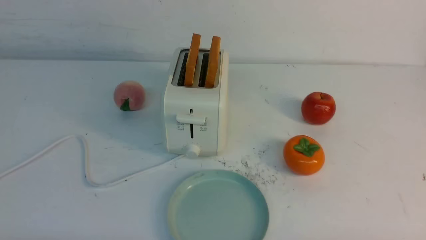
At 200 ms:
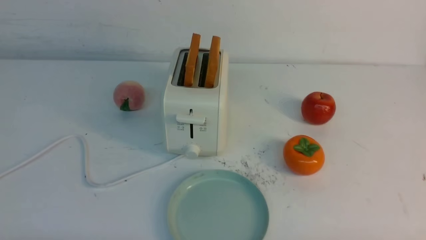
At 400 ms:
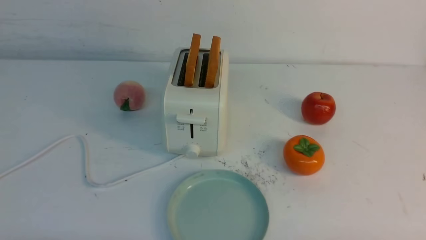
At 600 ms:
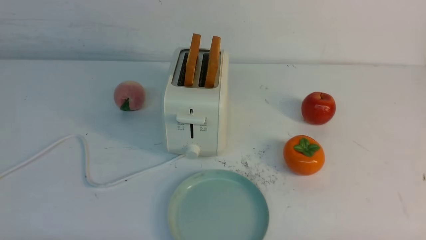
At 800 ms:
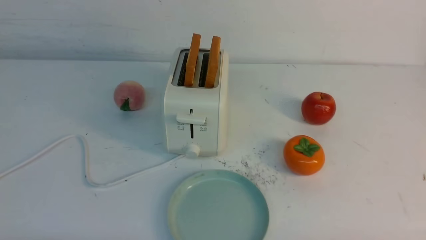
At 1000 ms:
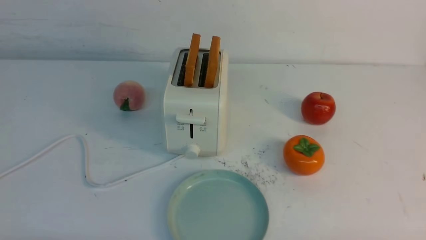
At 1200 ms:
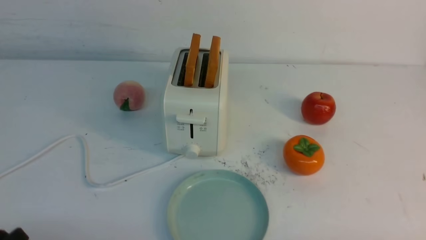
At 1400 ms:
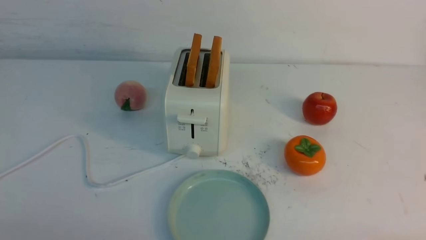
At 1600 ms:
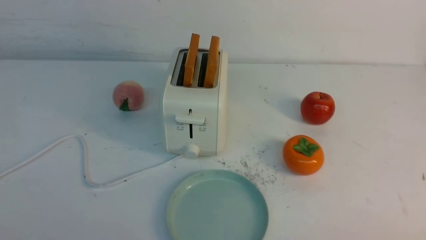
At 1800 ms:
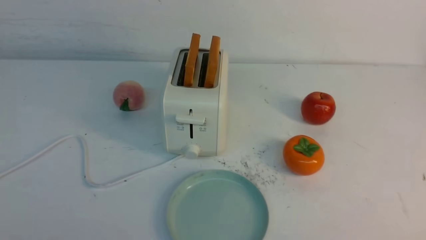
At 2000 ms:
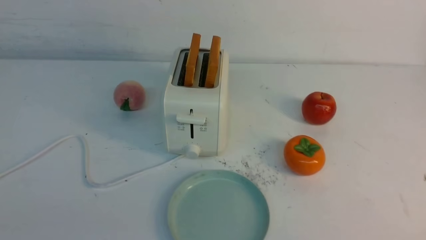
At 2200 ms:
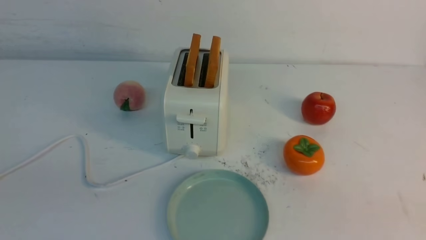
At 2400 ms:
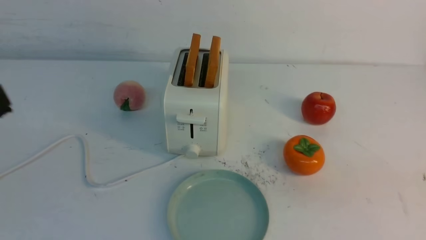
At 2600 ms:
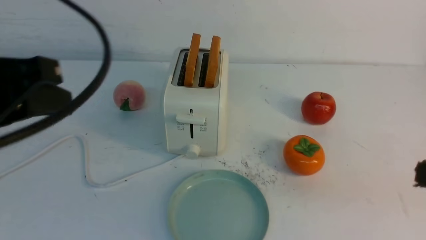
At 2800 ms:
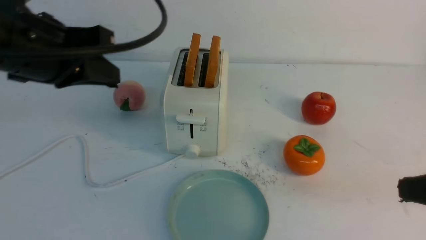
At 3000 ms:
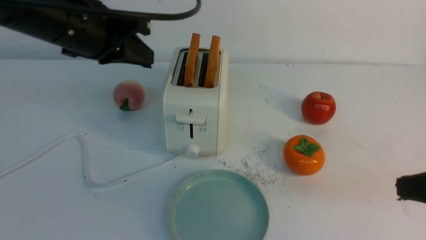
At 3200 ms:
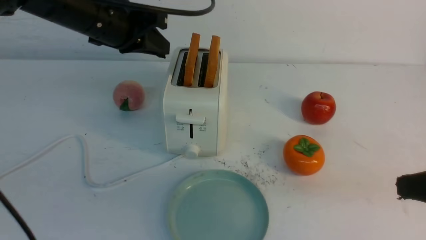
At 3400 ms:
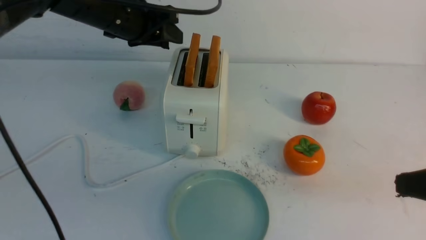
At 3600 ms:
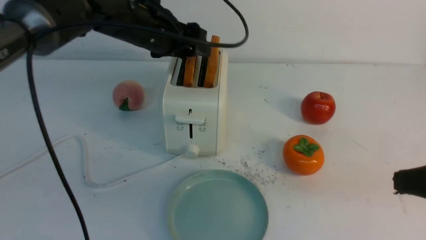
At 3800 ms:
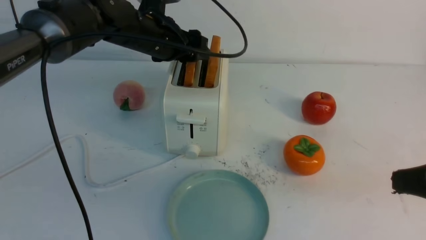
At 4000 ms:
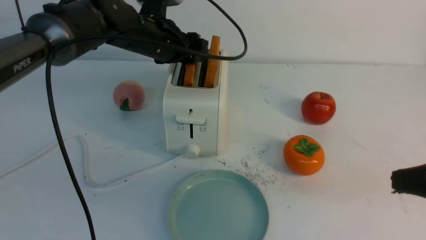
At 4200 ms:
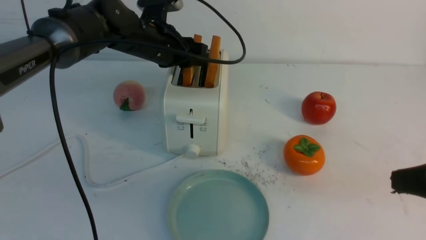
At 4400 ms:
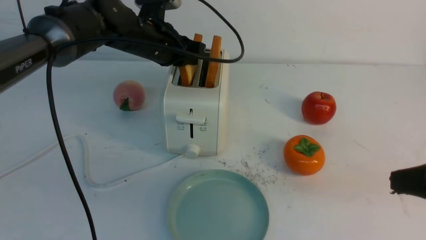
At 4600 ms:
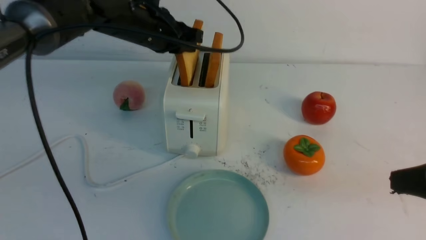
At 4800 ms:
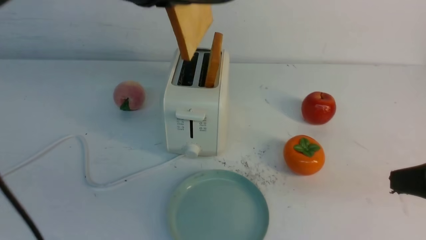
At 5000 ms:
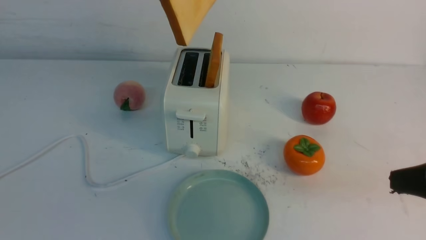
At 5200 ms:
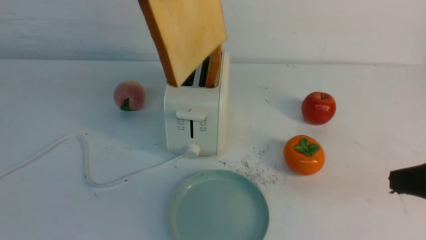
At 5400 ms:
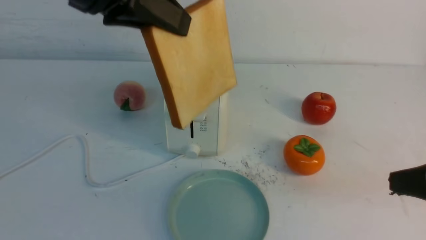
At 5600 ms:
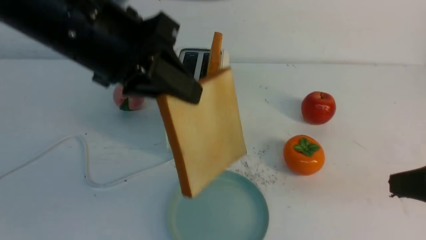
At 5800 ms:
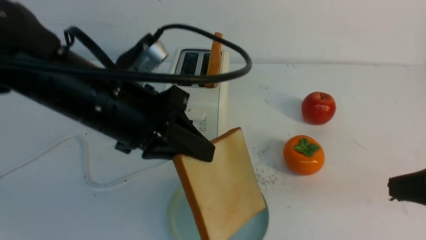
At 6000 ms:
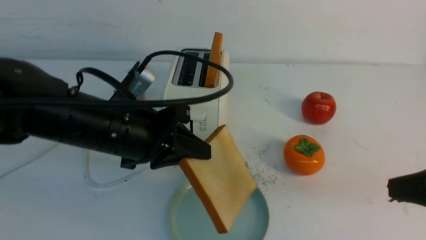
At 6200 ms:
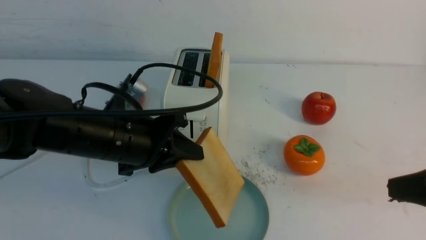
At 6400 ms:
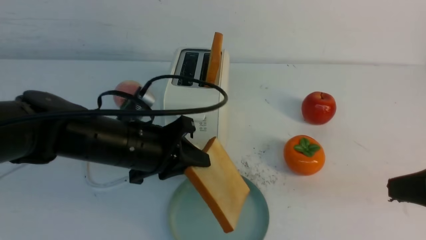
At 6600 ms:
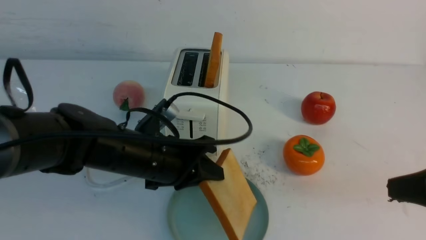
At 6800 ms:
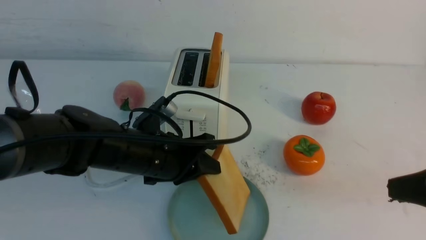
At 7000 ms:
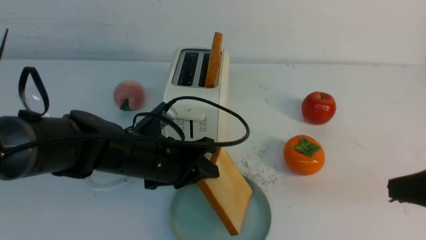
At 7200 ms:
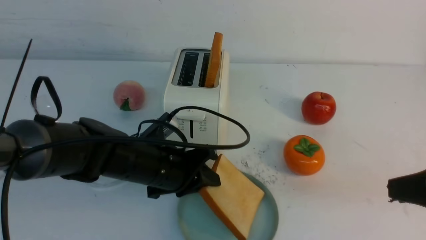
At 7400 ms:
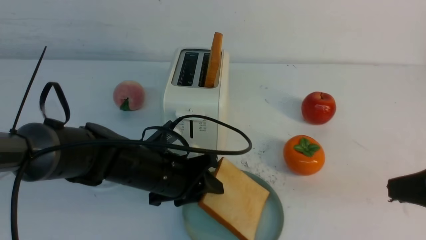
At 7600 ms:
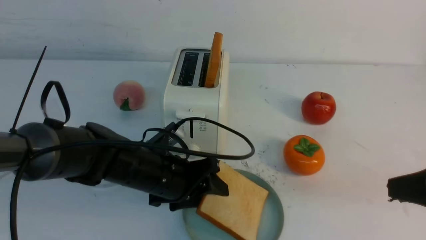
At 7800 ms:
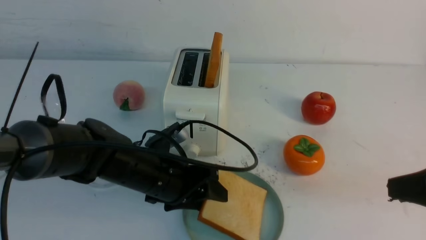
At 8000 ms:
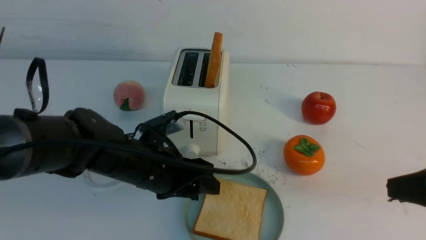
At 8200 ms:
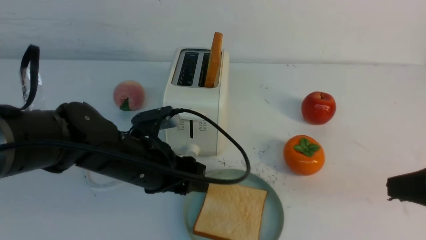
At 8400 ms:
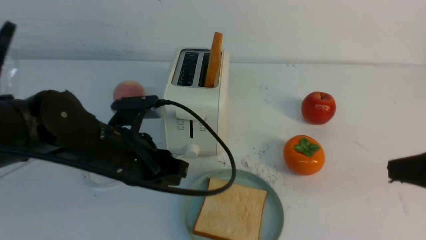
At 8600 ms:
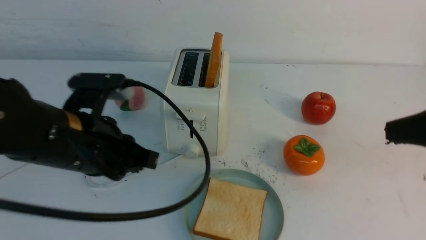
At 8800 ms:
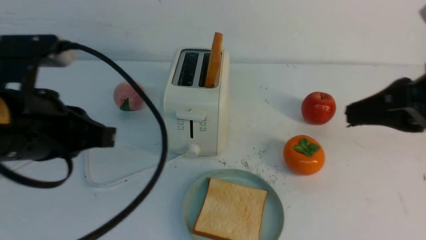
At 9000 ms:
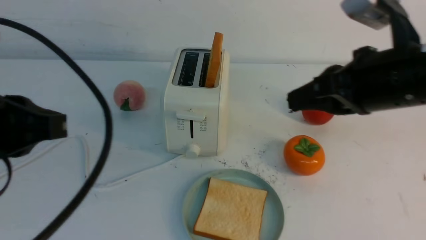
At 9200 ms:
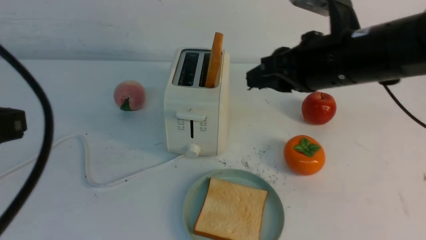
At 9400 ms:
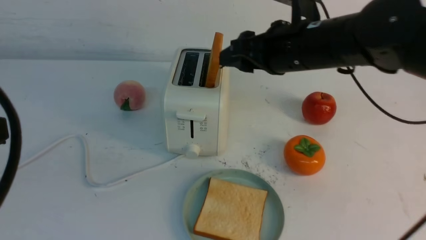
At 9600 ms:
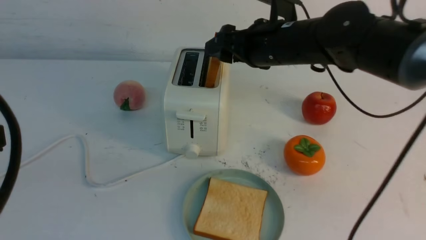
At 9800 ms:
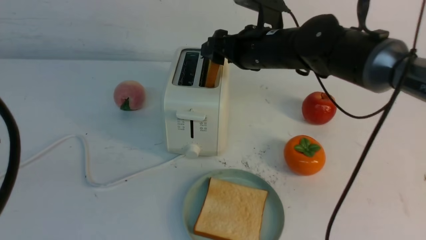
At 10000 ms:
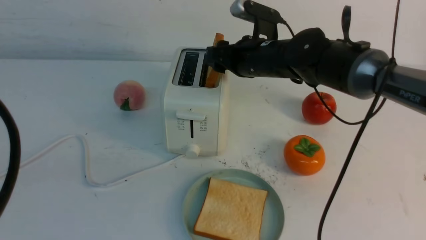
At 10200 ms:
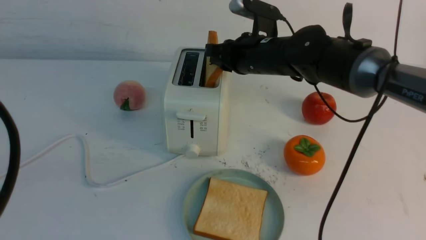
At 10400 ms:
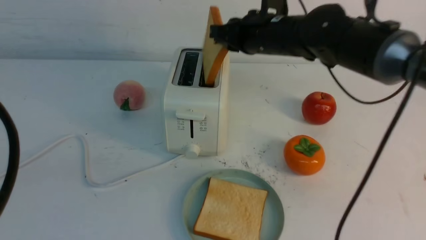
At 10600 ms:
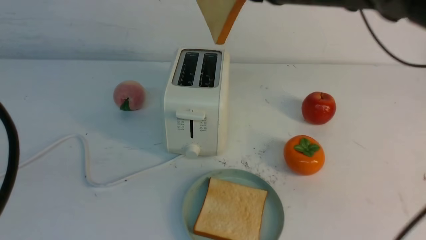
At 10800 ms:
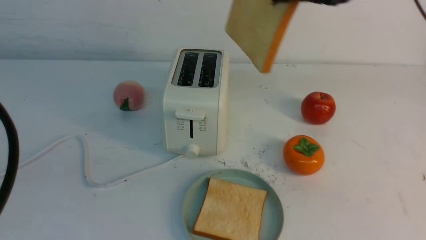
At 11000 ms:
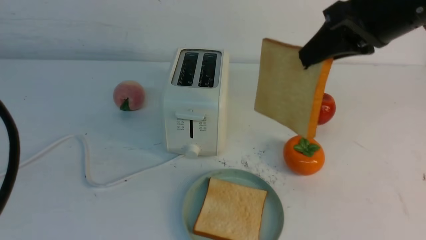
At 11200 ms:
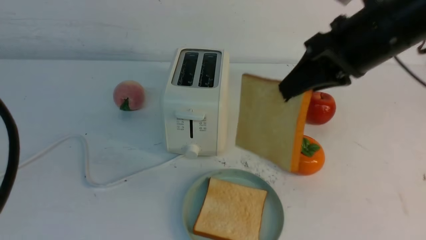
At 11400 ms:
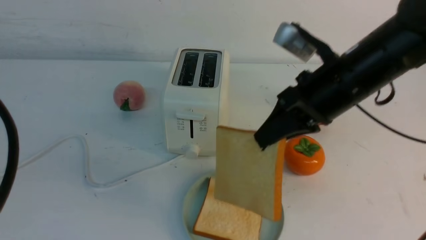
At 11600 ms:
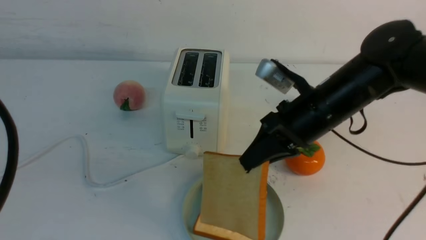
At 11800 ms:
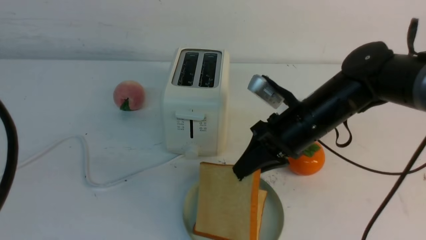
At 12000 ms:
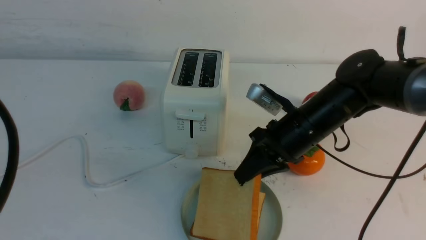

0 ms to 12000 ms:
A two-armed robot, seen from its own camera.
Task of the whole recording: take toasted bread from bread machine on white table place on plate.
Step, 0 ms to 4600 ms: use the left arm to take out a slice of bread.
Step, 4800 ms to 8200 ms: use the left arm to put a slice of bread into the empty plate.
Step, 8600 ms to 10200 ms: use the right arm to take out a slice of bread.
1600 ms to 3000 ms: The right gripper travels upward and forward by about 15 cm, and closes up. The left gripper is displaced forward and upward by approximately 30 cm, and closes up.
3000 ms to 4400 ms: The left gripper shifts approximately 20 cm forward, downward and to the right, and opens its fingers.
4400 ms to 6000 ms: The left gripper goes approximately 20 cm backward.
6000 ms to 7600 ms: The left gripper moves downward, approximately 15 cm, and opens its fingers.
7600 ms to 9000 ms: The right gripper shifts approximately 10 cm forward, to the left and upward; the left gripper goes some 25 cm upward, backward and to the left, and closes up.
9000 ms to 10400 ms: The right gripper heads forward and to the left, covering approximately 20 cm, and opens and closes again. The left gripper travels backward by about 5 cm.
10400 ms to 12000 ms: The right gripper is displaced downward and backward by approximately 10 cm.

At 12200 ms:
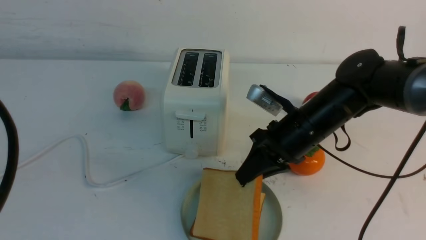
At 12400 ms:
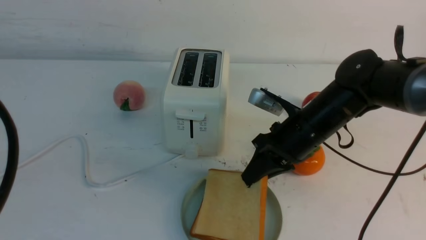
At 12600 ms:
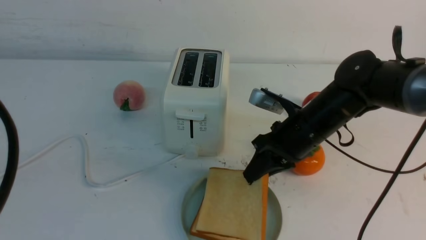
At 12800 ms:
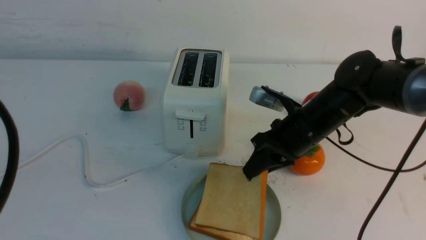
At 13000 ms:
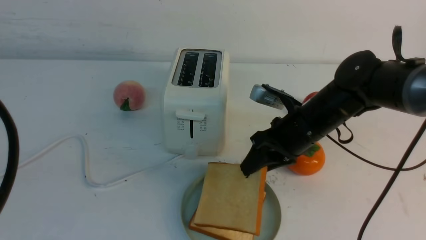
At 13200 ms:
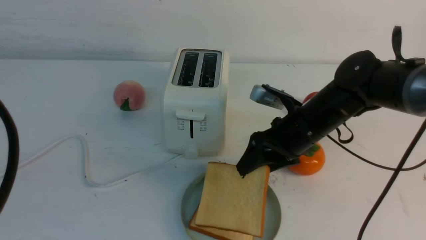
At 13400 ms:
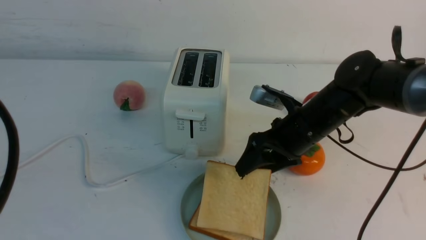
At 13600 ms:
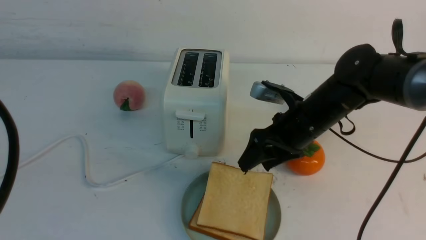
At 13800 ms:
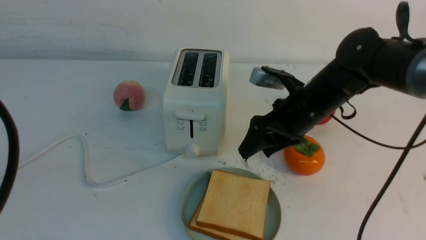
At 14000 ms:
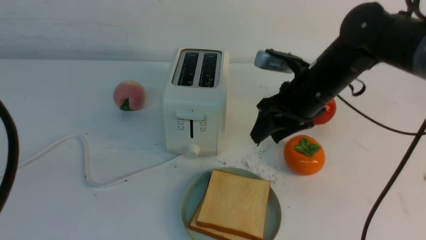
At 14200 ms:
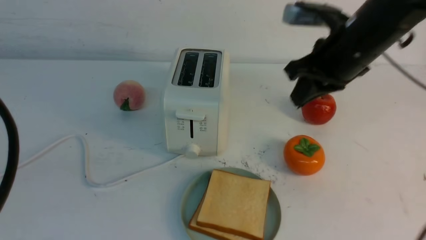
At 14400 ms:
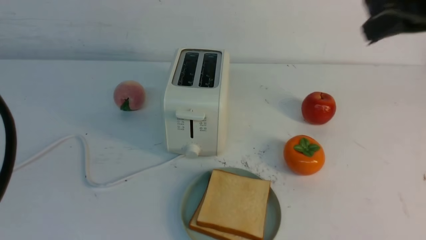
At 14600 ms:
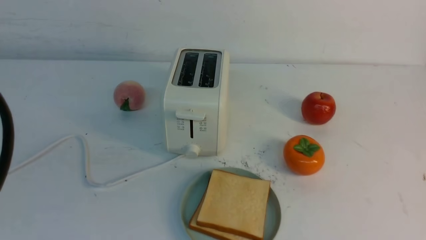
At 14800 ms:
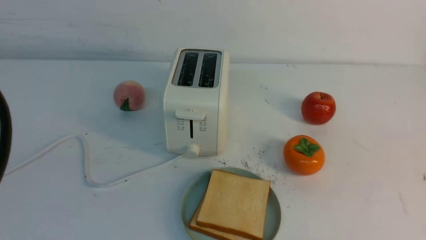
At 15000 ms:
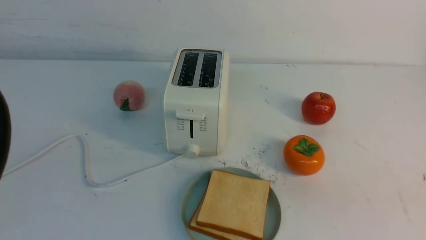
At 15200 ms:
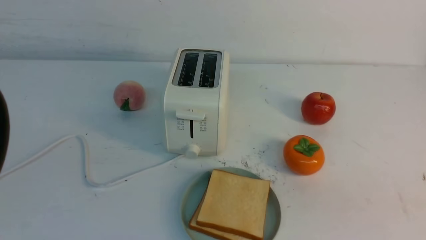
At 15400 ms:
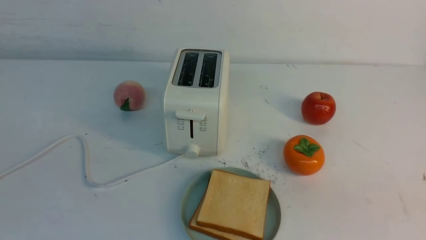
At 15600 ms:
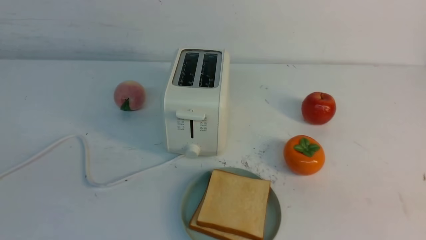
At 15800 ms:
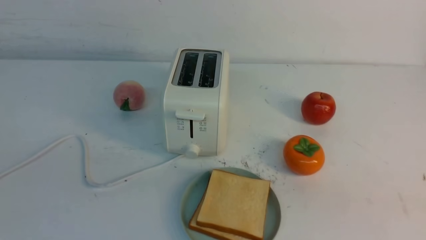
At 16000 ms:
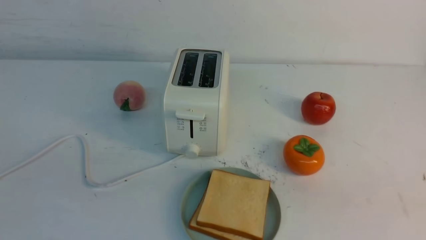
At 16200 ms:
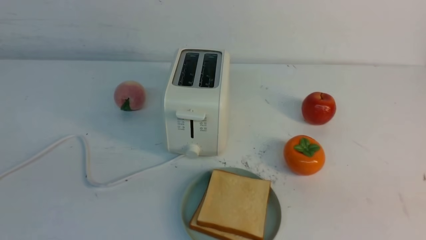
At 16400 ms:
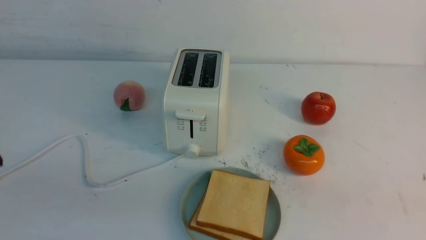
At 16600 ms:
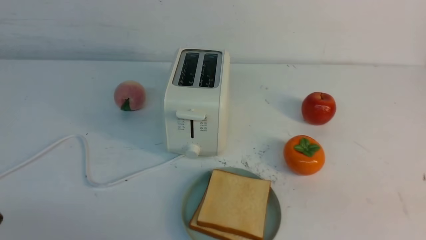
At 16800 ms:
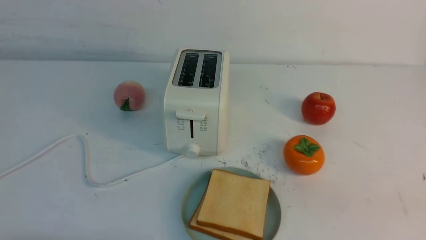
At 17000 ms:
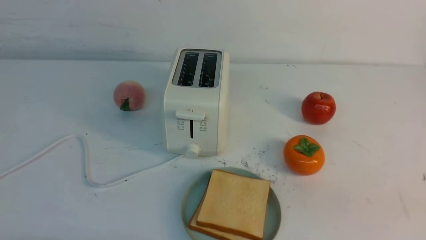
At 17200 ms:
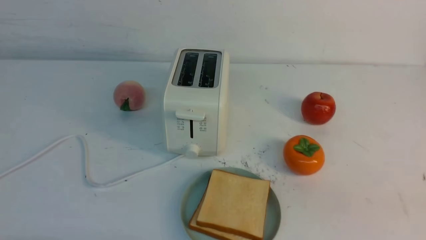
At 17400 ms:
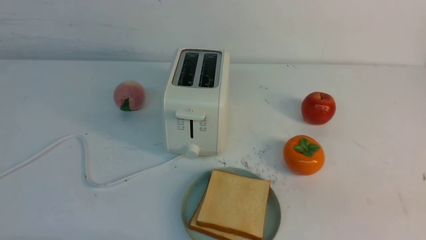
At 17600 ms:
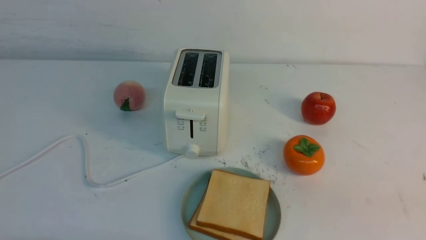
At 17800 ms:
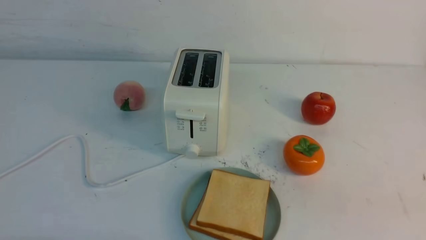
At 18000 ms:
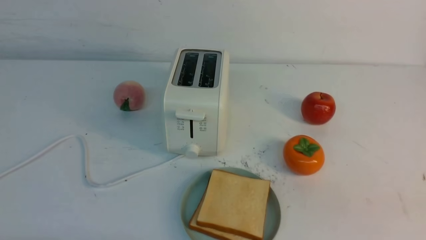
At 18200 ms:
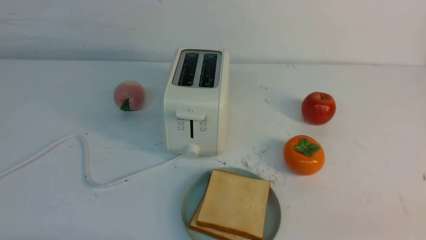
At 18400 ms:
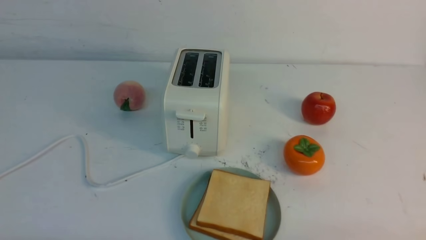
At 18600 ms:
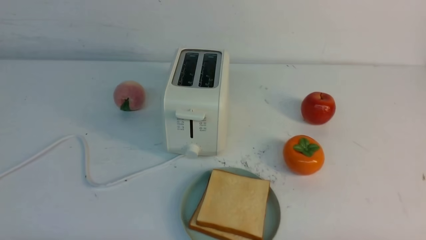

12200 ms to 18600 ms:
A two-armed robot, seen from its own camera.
Task of the whole recording: take toasted bread from bread machine on white table place on plate.
12200 ms to 13800 ms: The right gripper opens.
13800 ms to 15400 ms: The right gripper travels backward and to the right by about 35 cm, and closes up.
